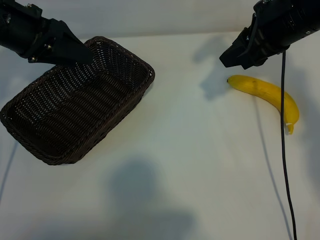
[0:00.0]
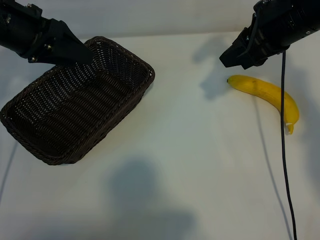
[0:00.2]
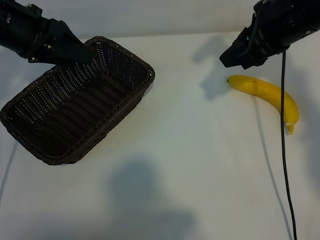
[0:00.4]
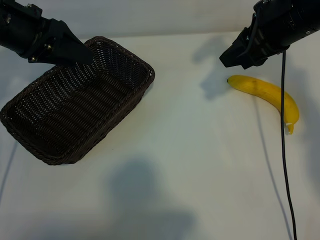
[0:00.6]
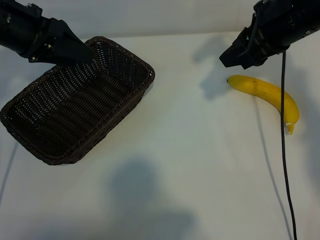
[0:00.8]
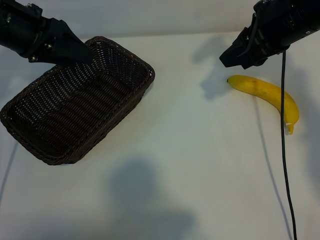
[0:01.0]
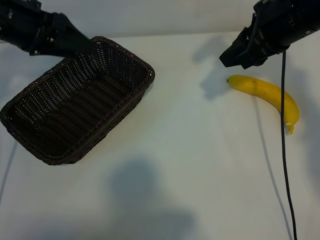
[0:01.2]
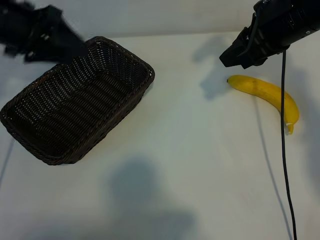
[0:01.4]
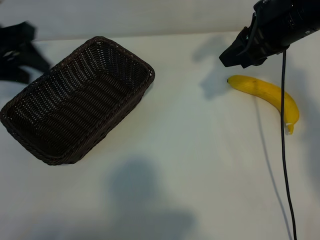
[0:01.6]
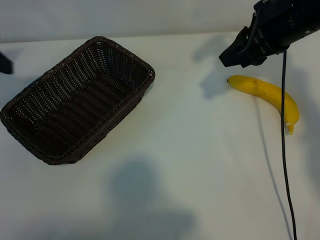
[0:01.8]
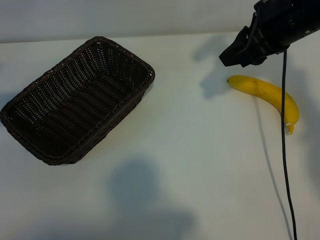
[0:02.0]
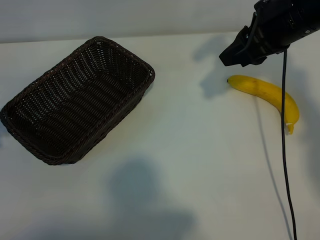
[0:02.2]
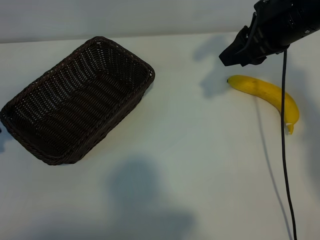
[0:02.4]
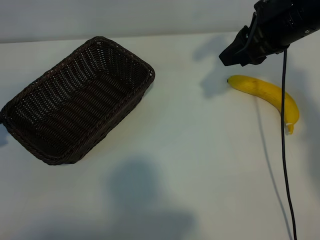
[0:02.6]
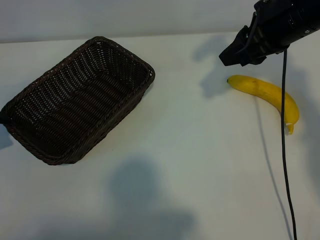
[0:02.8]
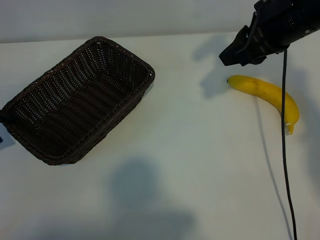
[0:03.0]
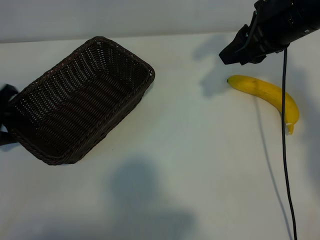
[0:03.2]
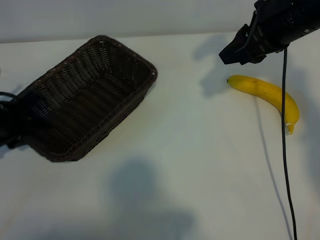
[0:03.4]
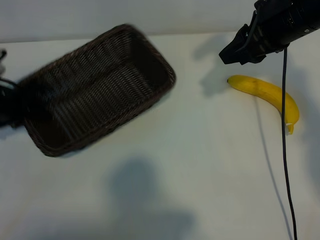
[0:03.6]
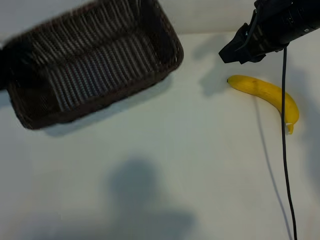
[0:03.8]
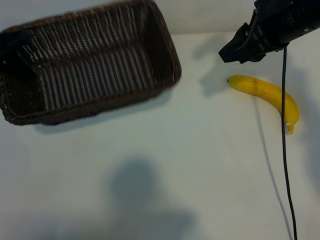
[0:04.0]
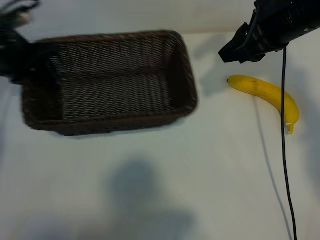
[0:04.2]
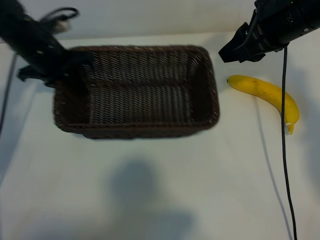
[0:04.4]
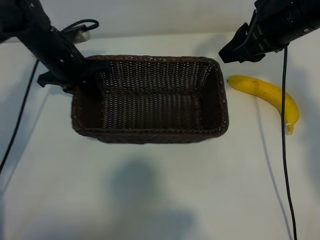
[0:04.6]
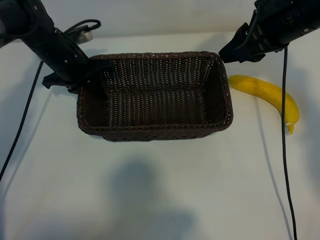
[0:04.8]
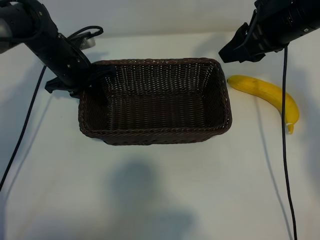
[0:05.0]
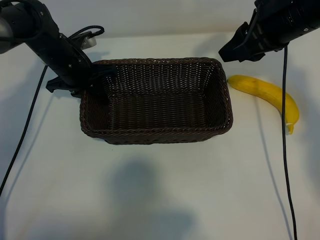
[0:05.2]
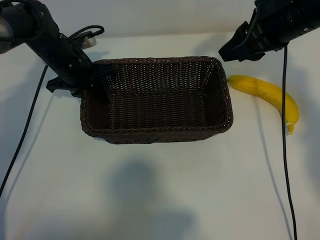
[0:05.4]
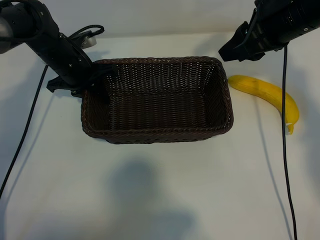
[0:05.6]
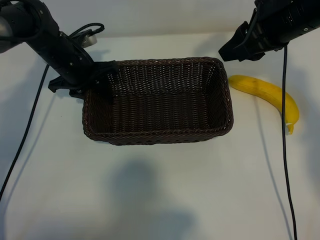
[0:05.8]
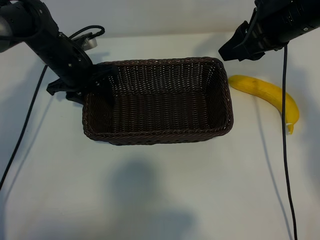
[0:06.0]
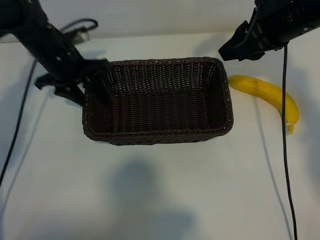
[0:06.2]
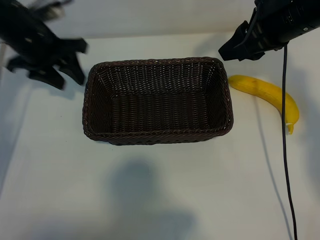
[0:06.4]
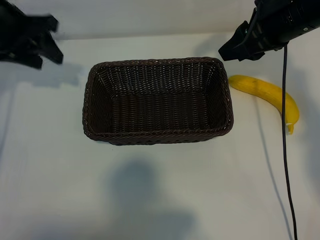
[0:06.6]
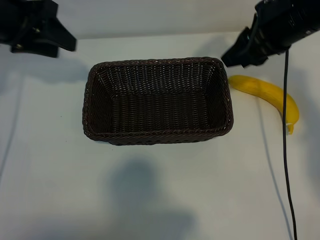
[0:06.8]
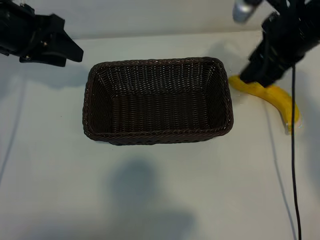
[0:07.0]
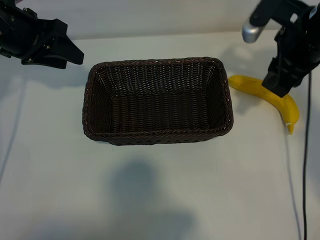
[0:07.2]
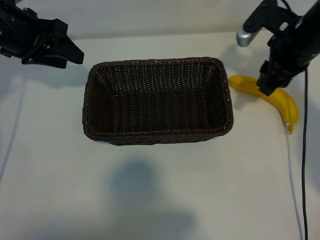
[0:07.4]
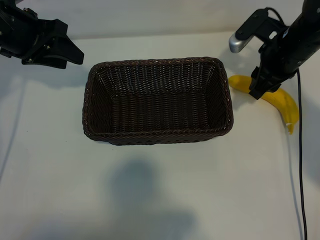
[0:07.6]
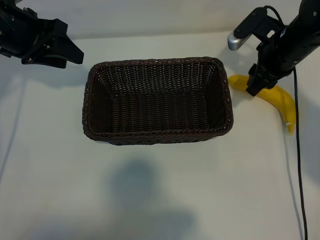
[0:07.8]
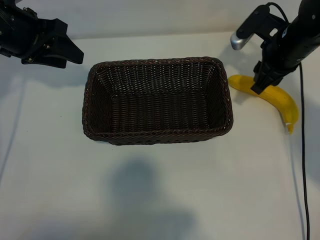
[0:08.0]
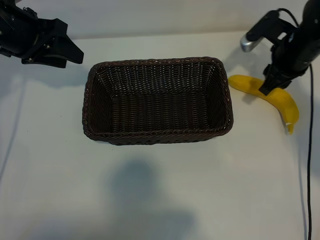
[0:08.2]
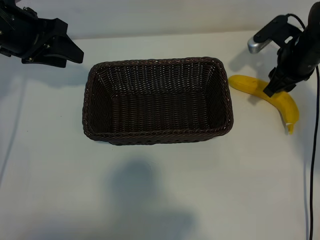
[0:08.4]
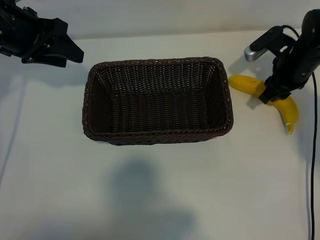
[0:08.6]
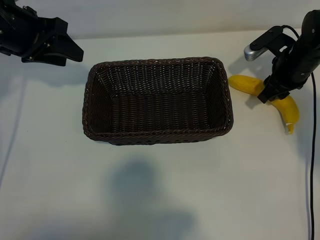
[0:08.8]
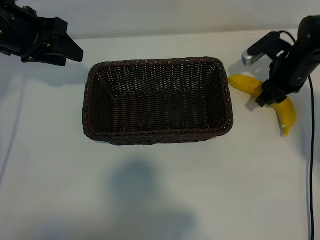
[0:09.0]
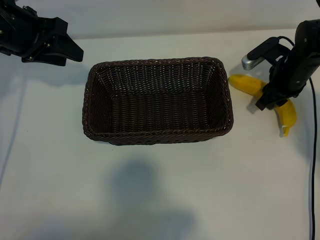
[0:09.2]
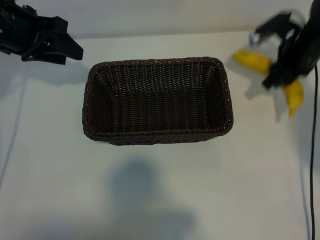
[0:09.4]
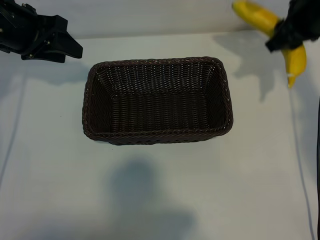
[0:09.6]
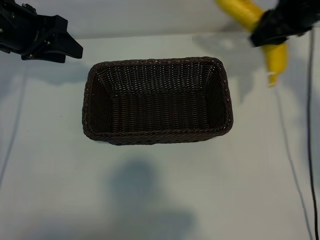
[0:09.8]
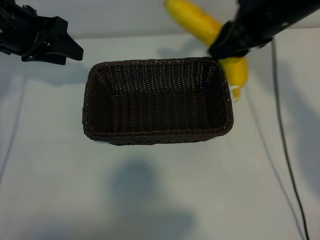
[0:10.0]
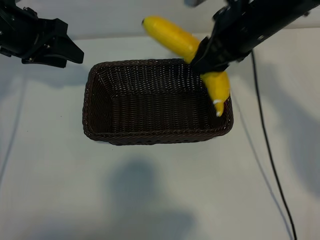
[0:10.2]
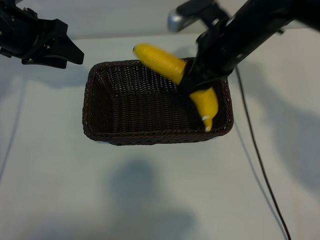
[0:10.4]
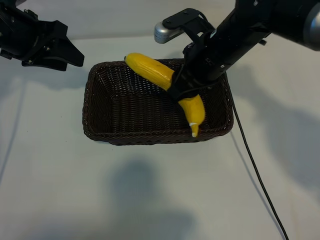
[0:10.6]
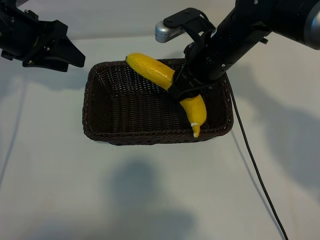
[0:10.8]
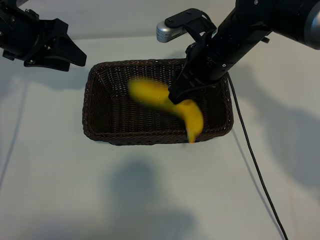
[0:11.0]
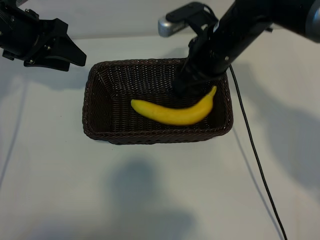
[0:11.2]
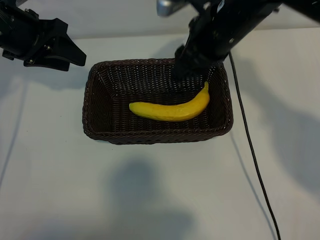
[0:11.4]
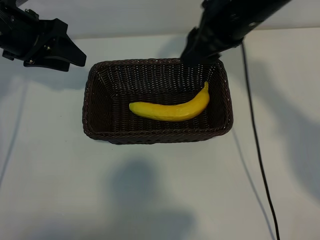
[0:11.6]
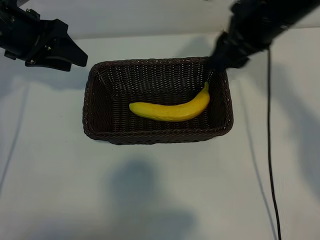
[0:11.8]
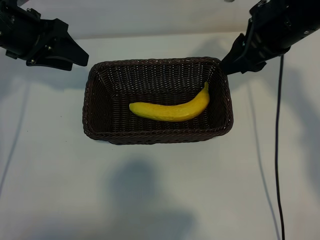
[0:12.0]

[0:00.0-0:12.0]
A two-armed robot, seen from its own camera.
Task of the whole recording: pick up the banana and put it into the basket.
Step, 0:00.8 to 0:03.2: Grasp the basket with the left gripper.
Step, 0:03.4 to 0:06.4: Place the basket in the center of the table with the left gripper.
Step, 0:06.6 to 0:09.0: Grasp the banana with right gripper.
Step, 0:09.2 to 0:11.2: Place the banana in the basket with right gripper.

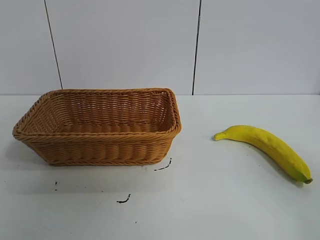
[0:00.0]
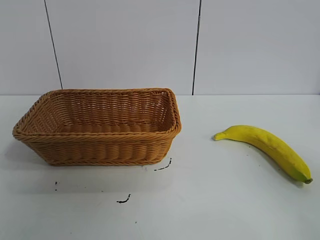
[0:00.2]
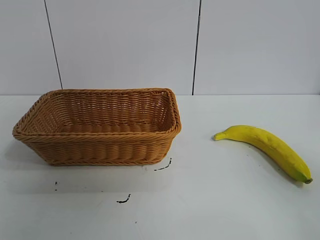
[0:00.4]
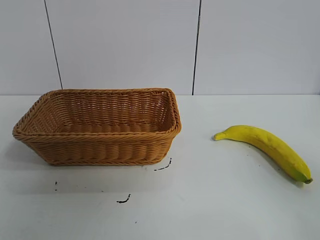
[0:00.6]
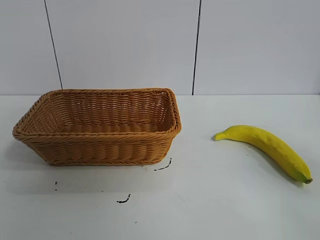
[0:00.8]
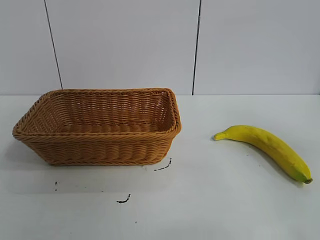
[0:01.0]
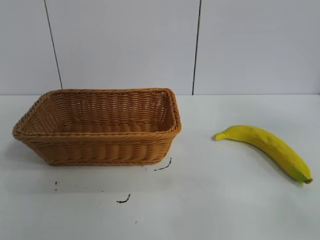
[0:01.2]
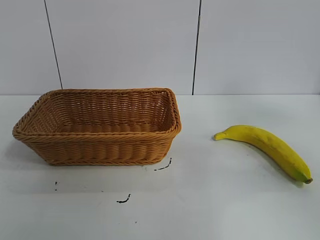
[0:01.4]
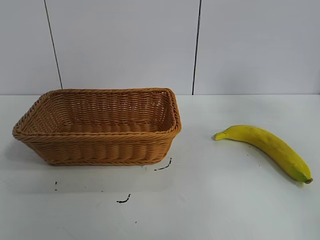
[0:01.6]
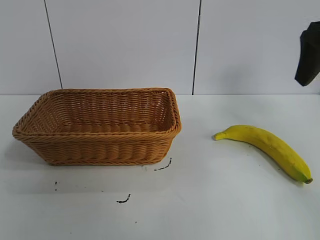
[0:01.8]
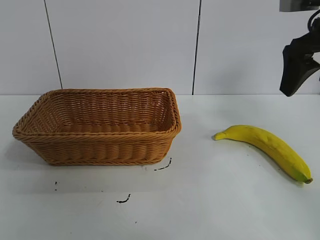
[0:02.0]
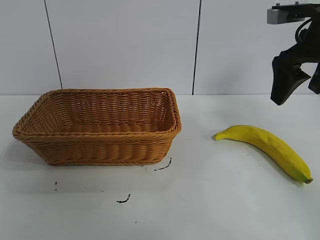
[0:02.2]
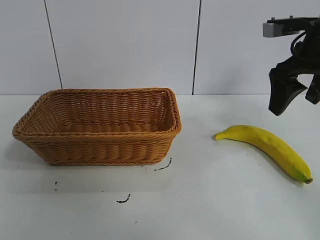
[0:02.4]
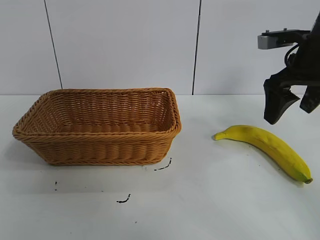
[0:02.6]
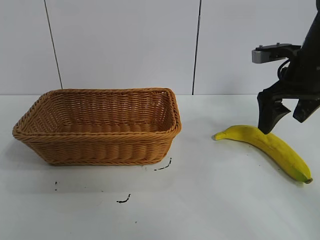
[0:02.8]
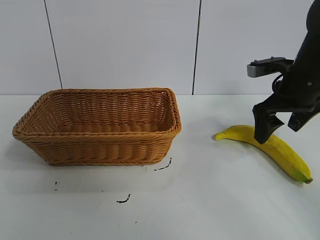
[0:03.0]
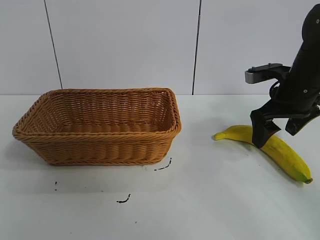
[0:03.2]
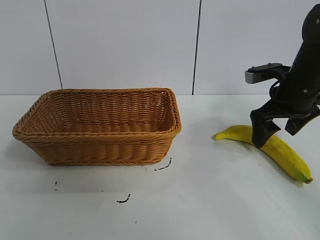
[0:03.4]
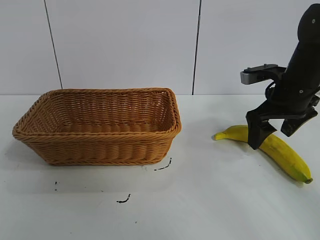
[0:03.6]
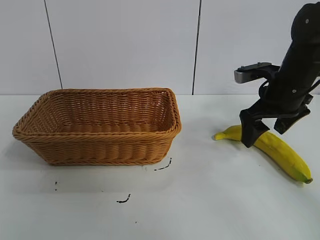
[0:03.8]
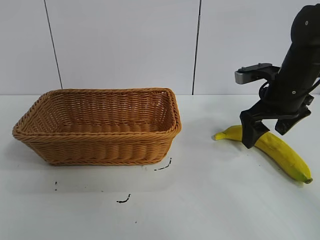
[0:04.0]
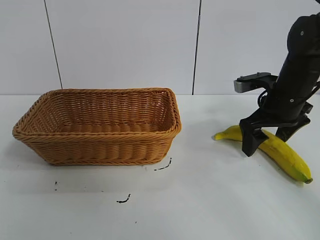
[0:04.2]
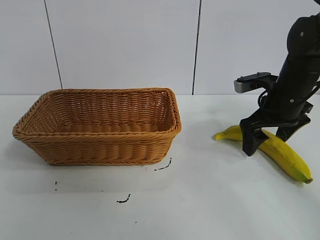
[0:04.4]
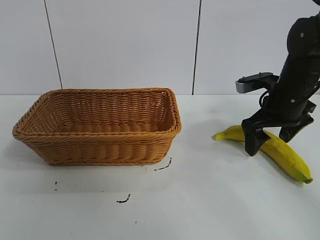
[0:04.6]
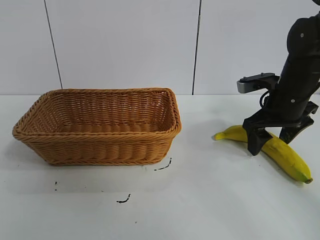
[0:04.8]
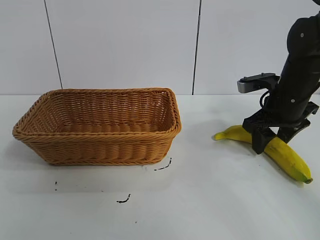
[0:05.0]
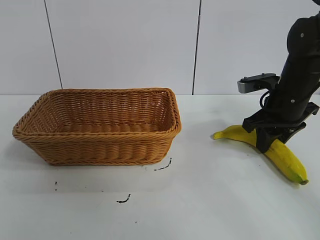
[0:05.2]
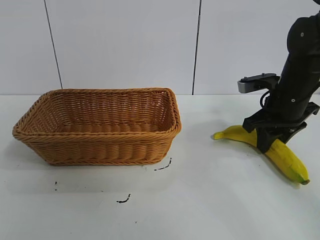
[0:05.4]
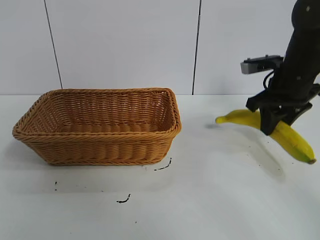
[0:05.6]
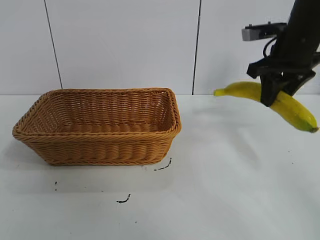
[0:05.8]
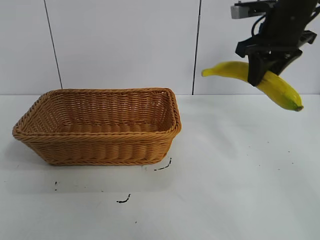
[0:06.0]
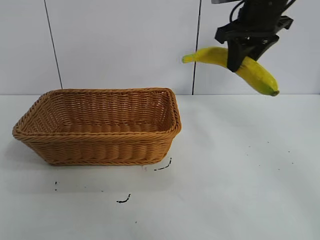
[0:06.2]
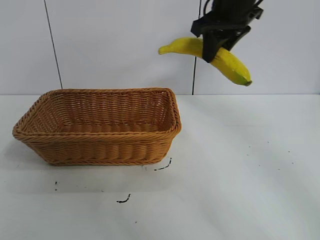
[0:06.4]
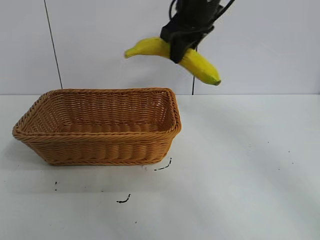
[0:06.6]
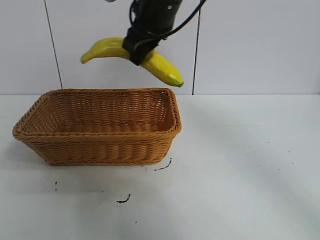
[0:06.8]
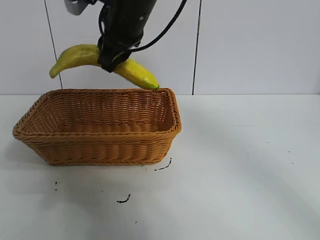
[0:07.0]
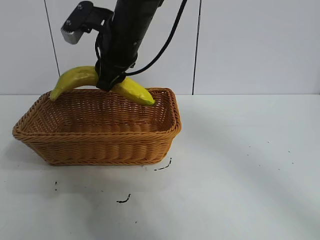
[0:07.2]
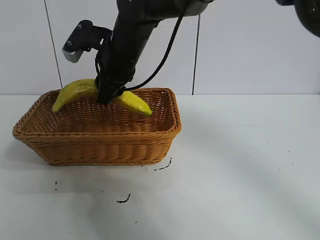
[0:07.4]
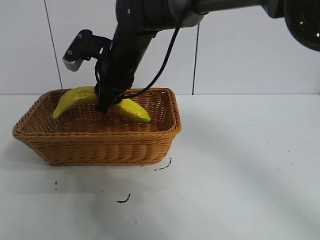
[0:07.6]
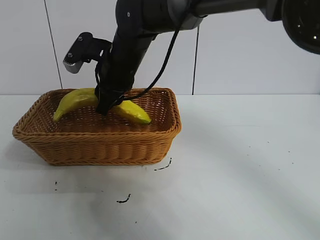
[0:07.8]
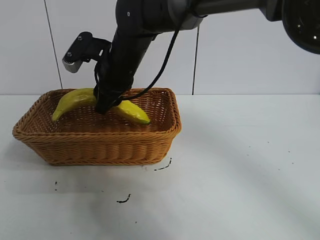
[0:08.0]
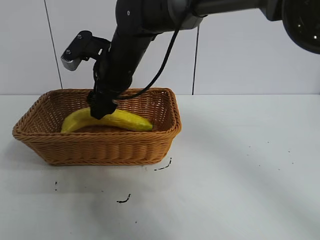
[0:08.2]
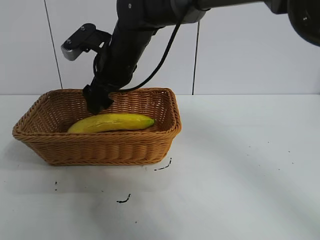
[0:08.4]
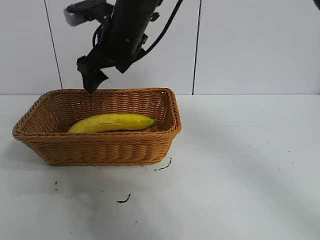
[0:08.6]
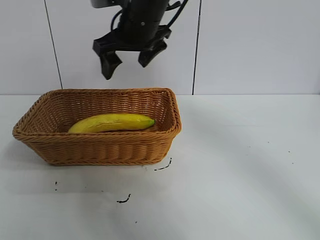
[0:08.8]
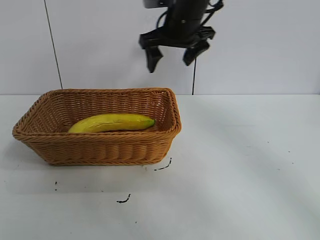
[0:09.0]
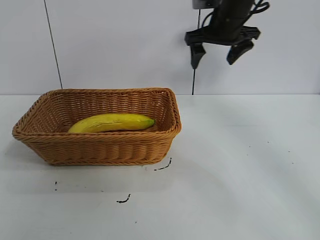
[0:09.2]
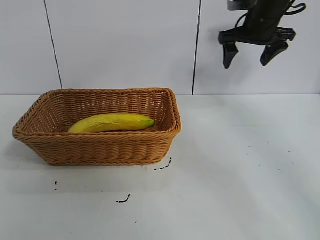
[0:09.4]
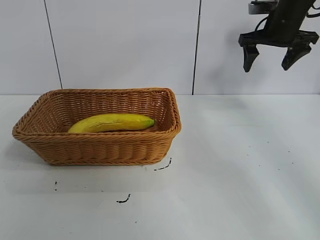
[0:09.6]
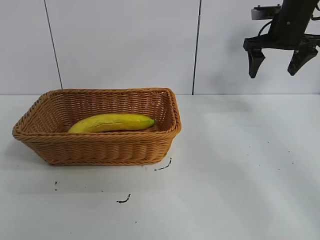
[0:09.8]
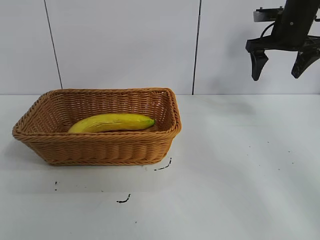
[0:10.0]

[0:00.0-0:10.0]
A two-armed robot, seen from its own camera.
Task of the whole recording: pick up the banana and put it into the basket.
Step, 0:00.8 to 0:05.0: Grasp the banana with right gripper.
Step, 0:05.2 to 0:08.2: Place the banana in the basket with right gripper.
